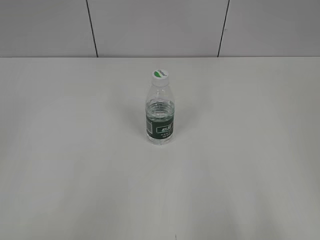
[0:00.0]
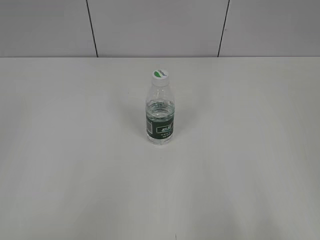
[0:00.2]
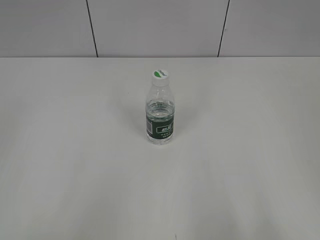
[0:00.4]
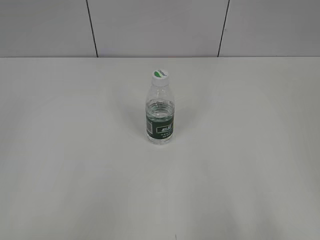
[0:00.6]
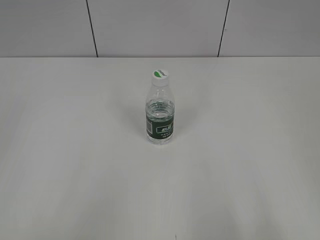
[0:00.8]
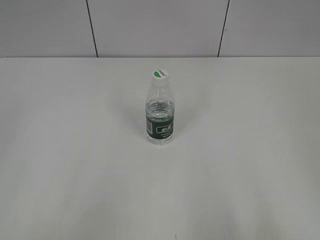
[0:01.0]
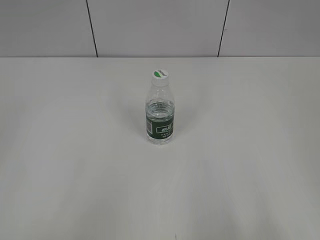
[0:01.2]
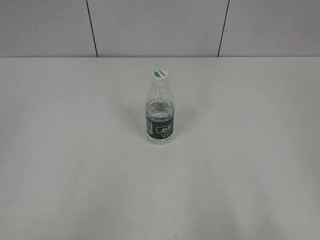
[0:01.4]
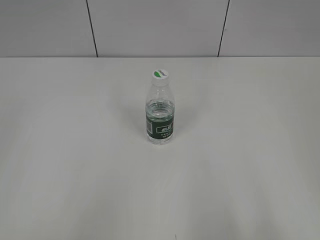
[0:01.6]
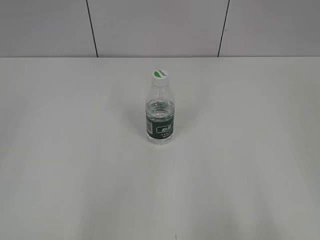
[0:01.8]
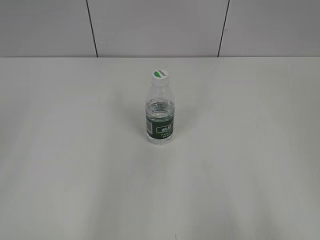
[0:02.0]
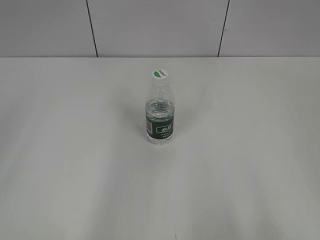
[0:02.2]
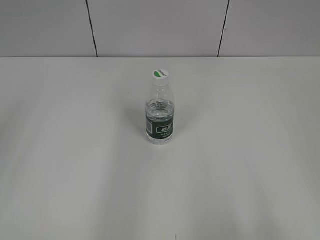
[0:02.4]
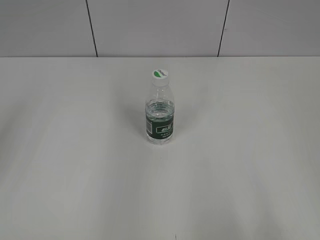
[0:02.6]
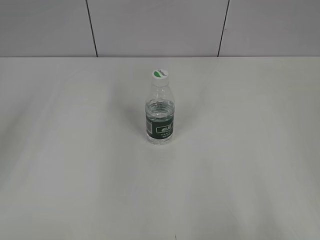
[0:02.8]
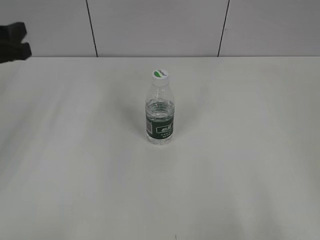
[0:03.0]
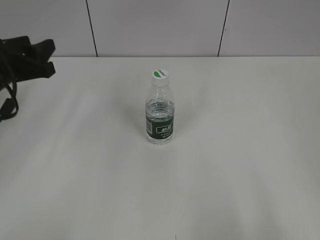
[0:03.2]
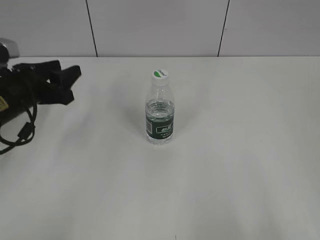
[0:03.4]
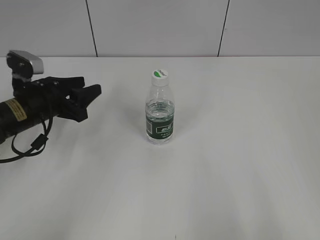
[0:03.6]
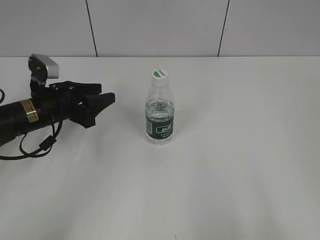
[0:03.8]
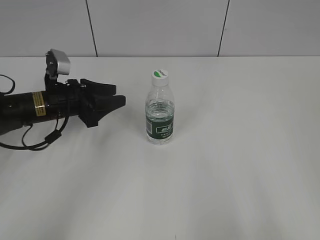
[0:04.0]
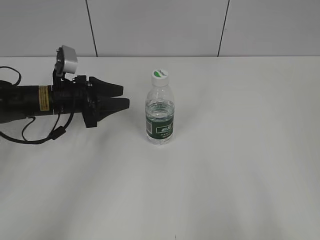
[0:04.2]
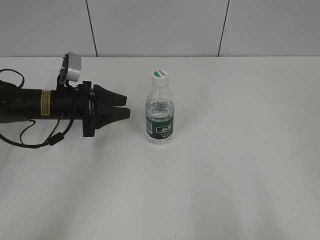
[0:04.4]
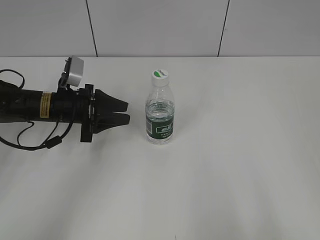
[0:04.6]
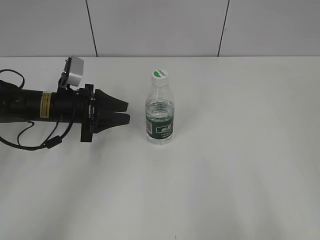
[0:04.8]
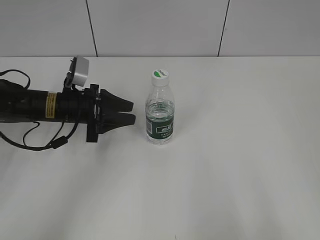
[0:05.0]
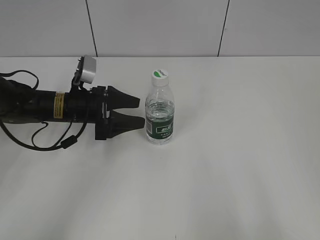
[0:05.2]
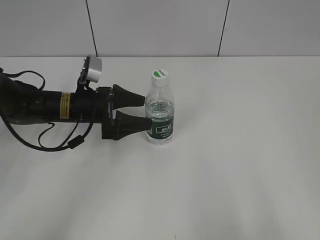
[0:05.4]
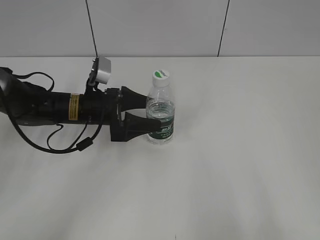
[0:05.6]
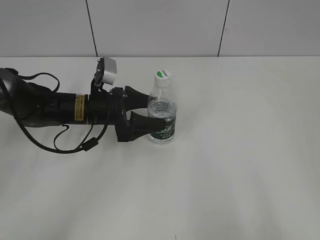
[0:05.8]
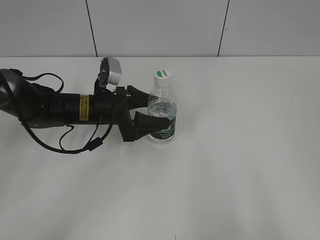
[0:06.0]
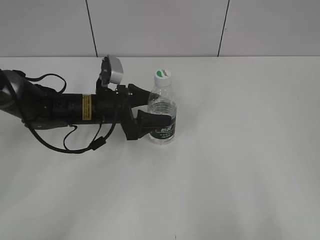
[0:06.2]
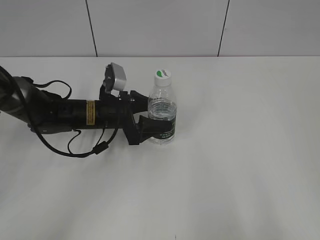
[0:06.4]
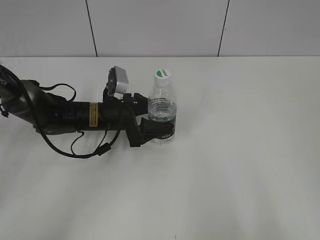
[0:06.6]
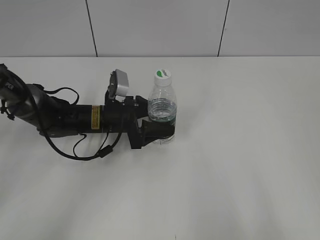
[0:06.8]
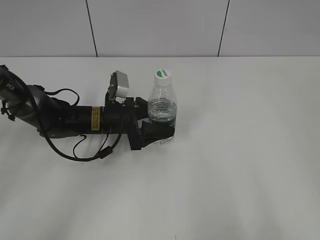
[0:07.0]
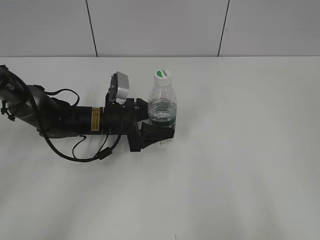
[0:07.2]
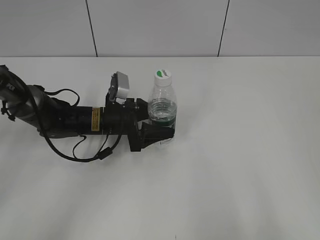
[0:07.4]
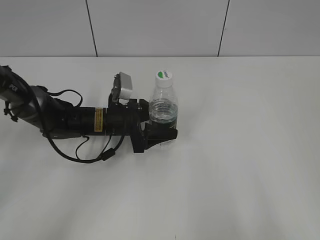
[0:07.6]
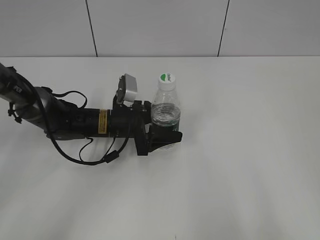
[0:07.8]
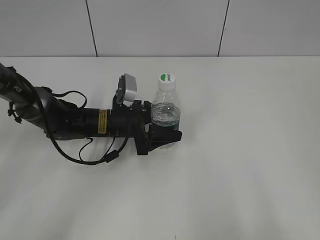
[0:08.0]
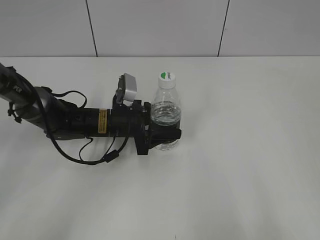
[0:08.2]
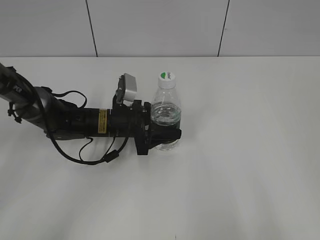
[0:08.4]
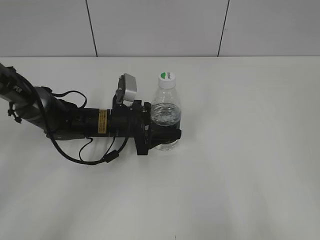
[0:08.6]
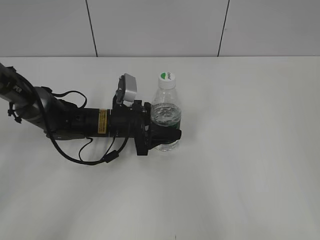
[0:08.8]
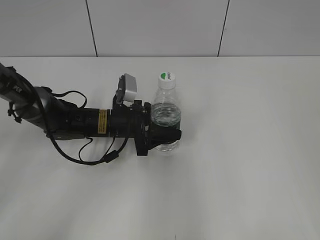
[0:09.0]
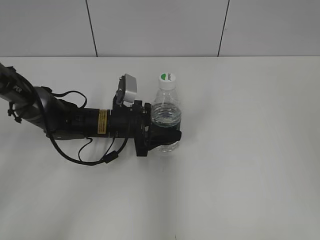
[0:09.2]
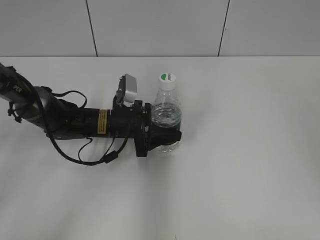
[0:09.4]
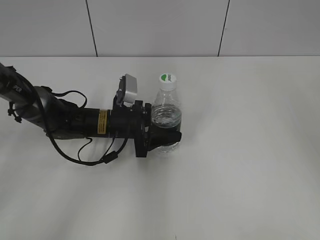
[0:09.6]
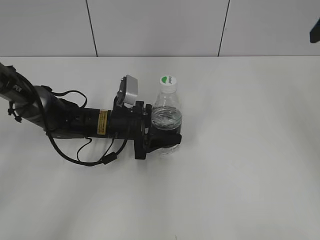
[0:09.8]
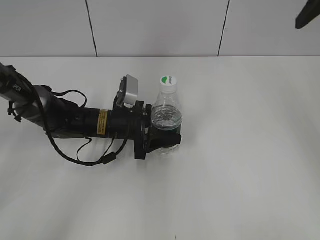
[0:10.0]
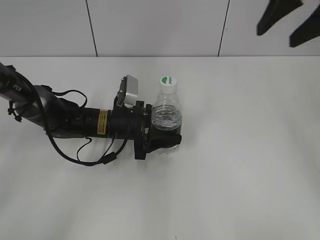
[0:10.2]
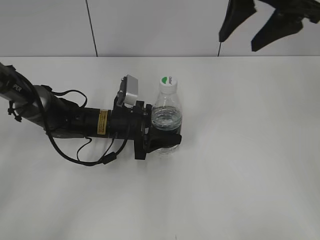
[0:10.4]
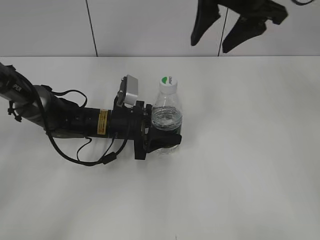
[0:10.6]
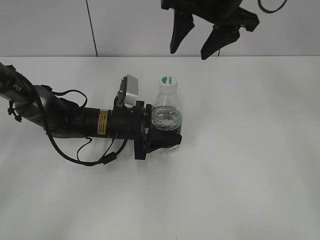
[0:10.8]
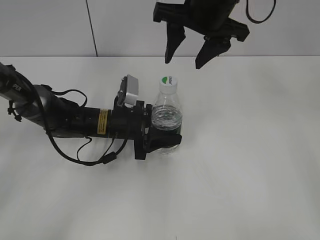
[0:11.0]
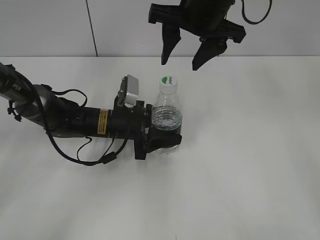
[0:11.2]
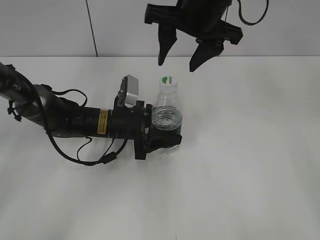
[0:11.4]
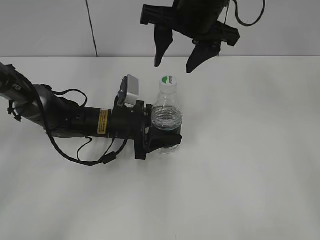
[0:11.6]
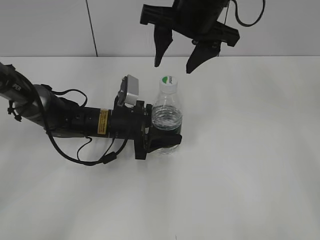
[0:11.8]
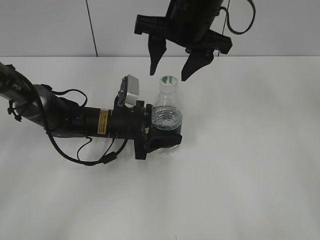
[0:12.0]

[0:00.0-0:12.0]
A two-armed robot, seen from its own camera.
Step, 0:00.0 to 0:10.6: Grasp the bottle and move it to the center of the table with the left gripper.
0:01.6 to 0:03.0: The left gripper travels forward by approximately 30 cm.
0:03.0 to 0:04.4: The left gripper travels downward, forward and to the right by approximately 20 cm.
0:04.4 to 0:06.0: The left gripper is displaced to the right by some 5 cm, and opens up.
0:06.0 to 0:07.6: The grippers move only a little.
0:07.6 to 0:09.0: The right gripper is displaced forward by roughly 5 cm. The left gripper closes.
0:09.0 to 0:10.4: The right gripper shifts some 30 cm forward and to the left.
0:10.4 to 0:12.0: The right gripper is displaced to the left and downward by approximately 15 cm.

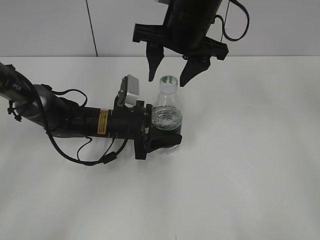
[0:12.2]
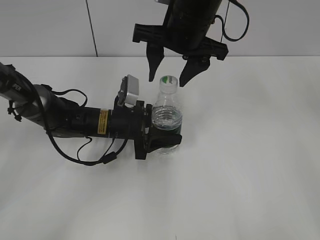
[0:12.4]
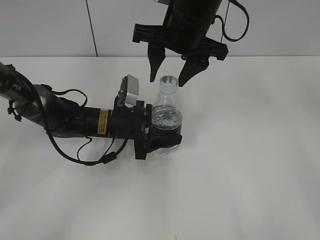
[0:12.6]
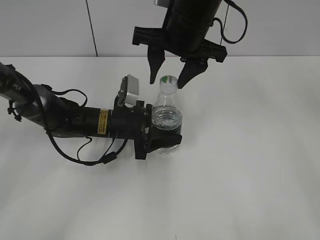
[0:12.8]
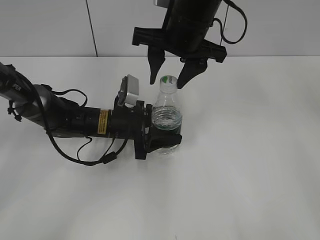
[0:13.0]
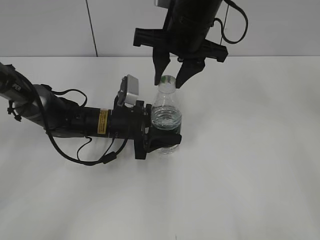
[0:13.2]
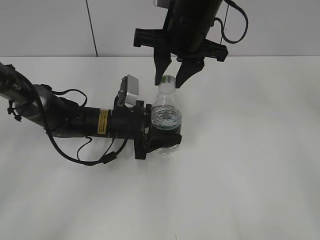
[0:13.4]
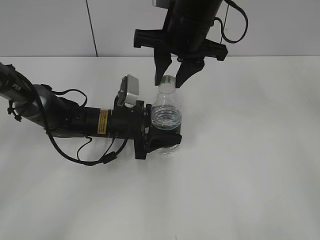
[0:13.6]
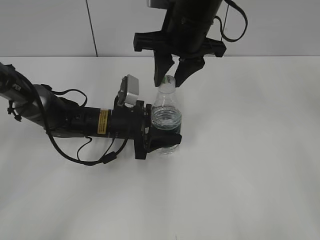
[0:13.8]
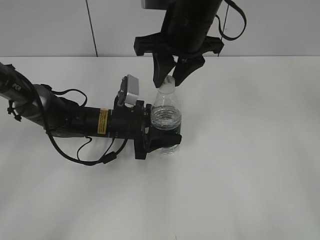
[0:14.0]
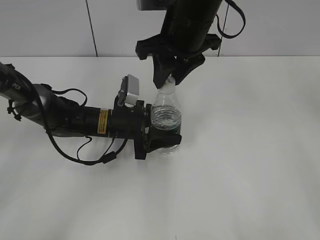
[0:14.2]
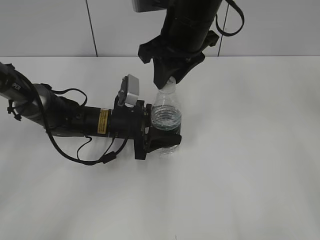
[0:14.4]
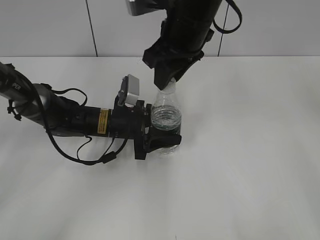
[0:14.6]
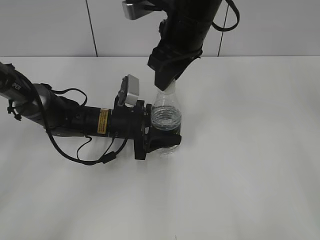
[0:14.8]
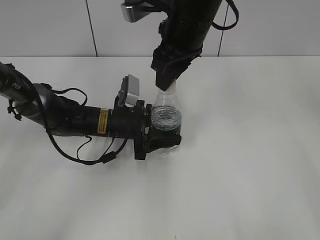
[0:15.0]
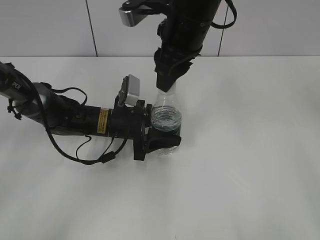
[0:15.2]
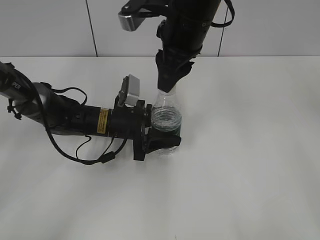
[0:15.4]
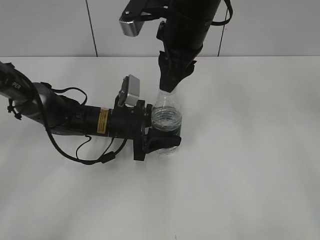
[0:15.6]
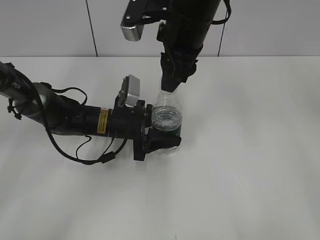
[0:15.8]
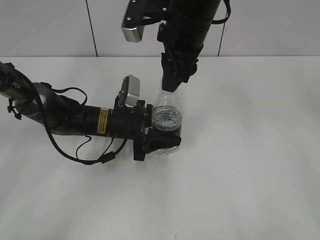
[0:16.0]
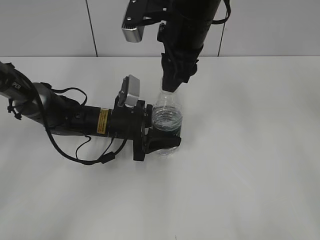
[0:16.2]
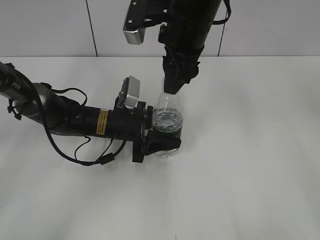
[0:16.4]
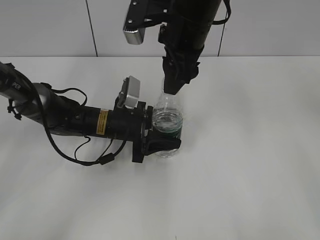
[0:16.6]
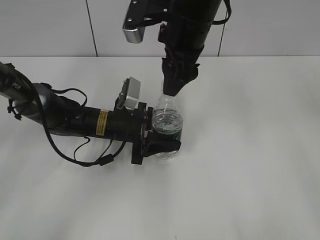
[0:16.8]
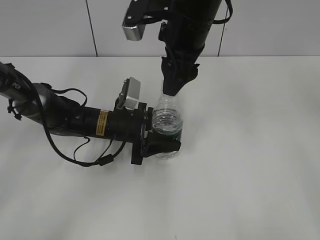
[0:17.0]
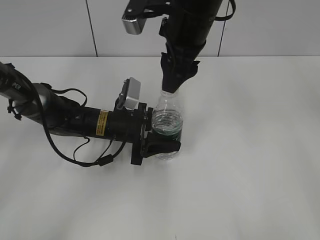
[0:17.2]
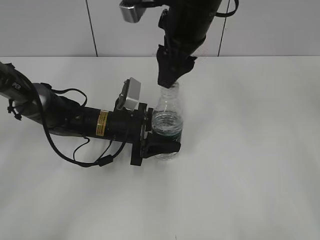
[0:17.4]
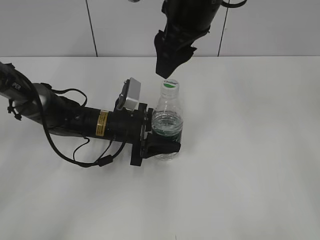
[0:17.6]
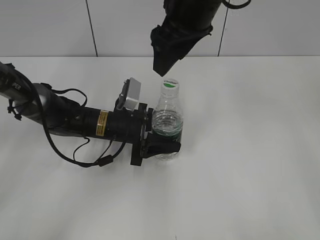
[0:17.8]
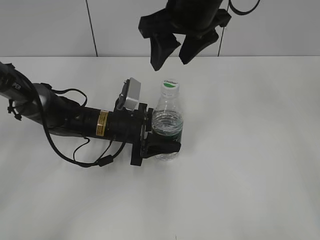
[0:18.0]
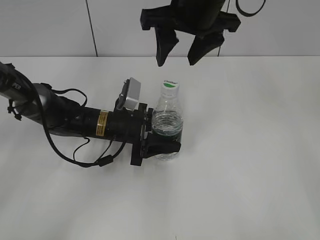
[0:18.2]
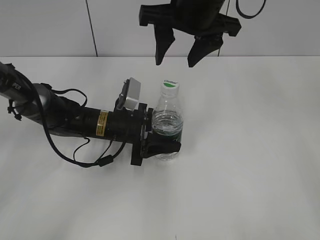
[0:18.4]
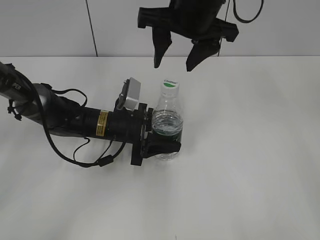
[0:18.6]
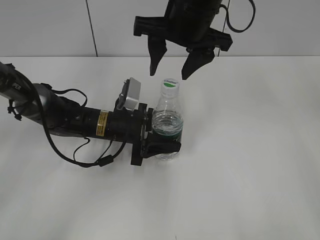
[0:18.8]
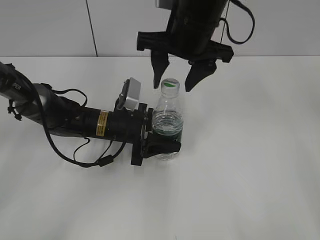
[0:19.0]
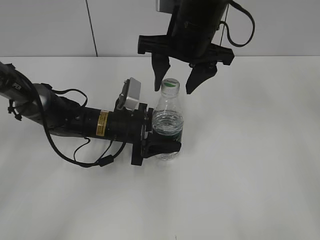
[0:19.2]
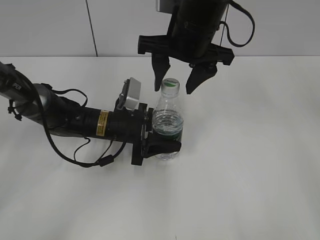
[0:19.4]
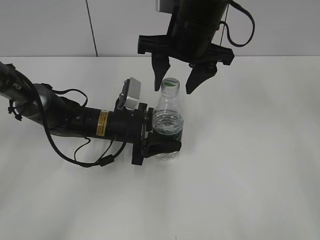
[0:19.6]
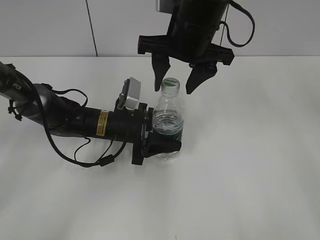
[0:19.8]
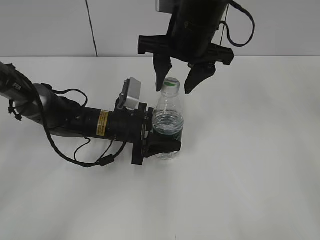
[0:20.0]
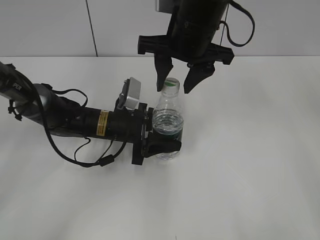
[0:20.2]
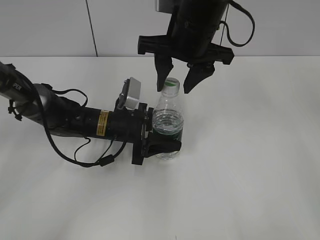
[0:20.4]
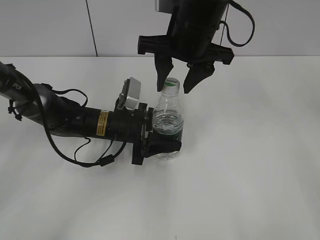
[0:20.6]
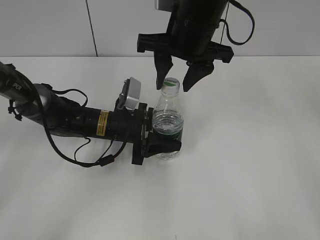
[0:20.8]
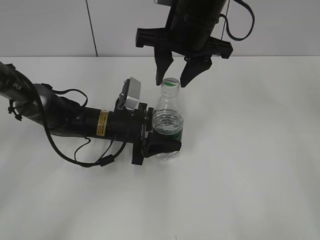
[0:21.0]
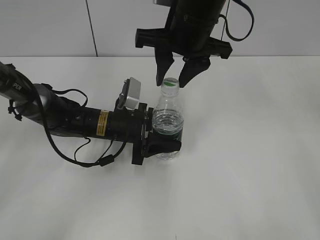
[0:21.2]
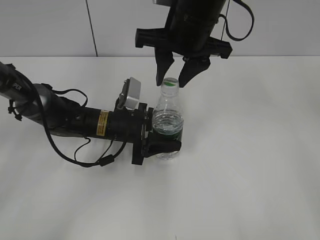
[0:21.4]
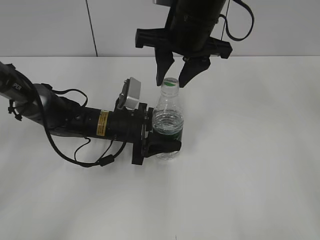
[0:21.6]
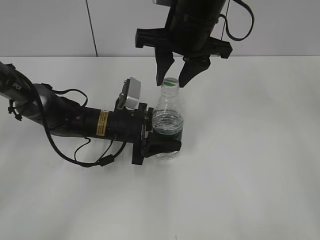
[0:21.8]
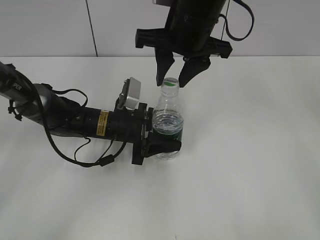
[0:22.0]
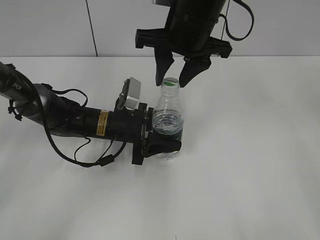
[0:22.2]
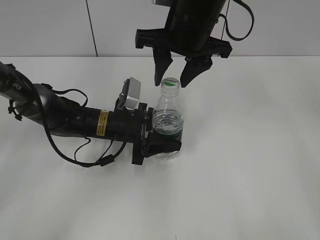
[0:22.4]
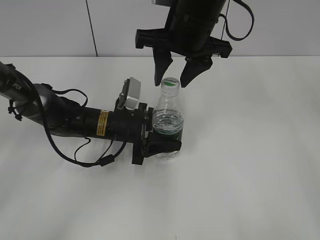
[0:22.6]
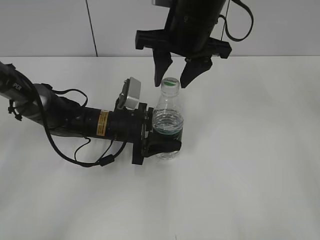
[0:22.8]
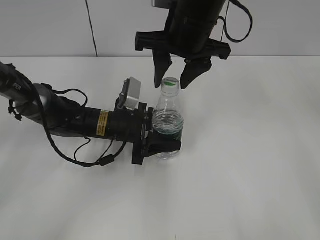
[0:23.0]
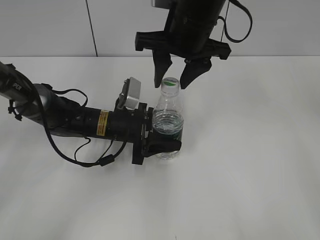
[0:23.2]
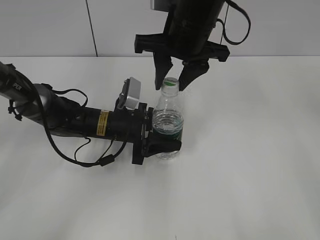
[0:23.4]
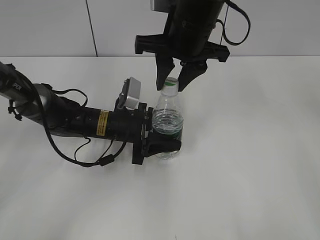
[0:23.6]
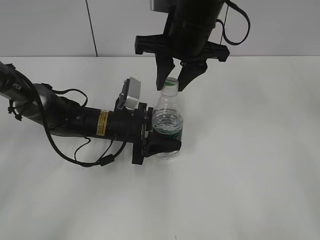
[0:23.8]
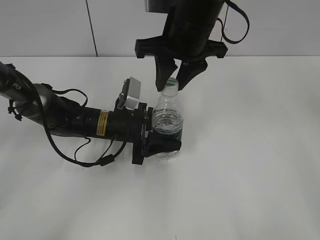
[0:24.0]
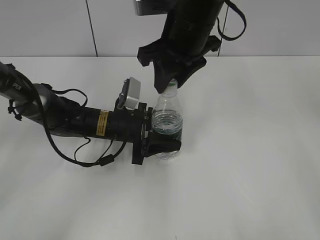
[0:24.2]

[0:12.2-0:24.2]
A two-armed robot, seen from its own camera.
0:12.2 to 0:13.8: The right gripper closes its fingers.
0:15.2 to 0:16.6: The right gripper opens.
0:16.6 to 0:18.2: The right gripper opens up.
0:18.2 to 0:19.8: The grippers make only small movements.
0:19.8 to 0:21.2: The right gripper closes its fingers.
0:21.2 to 0:22.6: The two grippers keep their place.
0:22.6 to 0:24.2: The right gripper closes.
